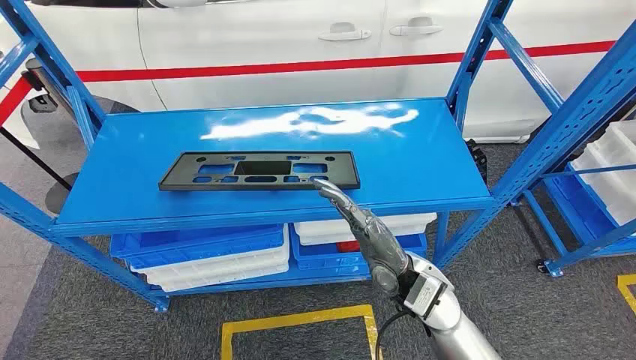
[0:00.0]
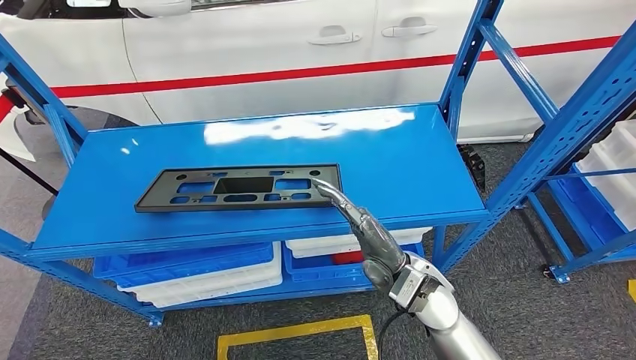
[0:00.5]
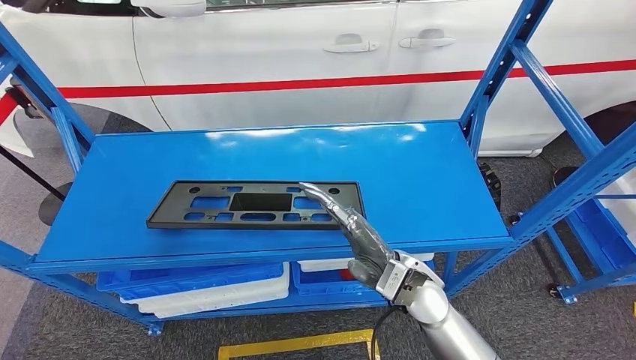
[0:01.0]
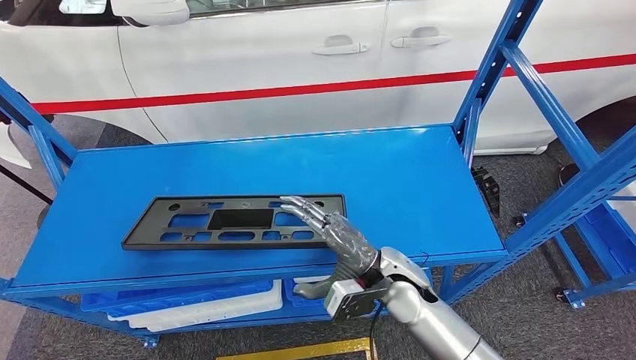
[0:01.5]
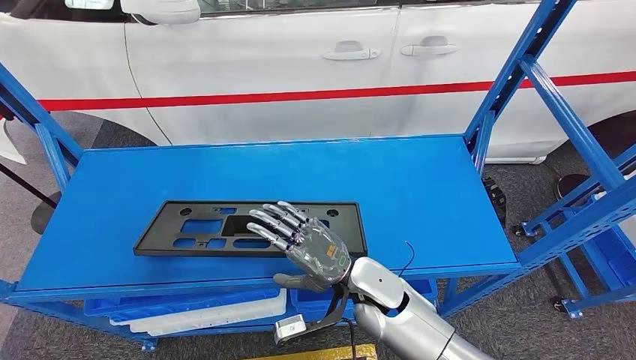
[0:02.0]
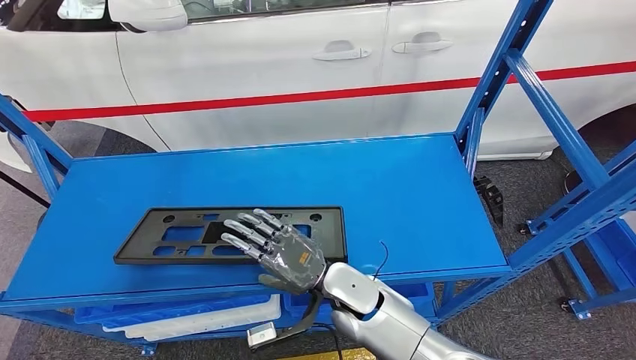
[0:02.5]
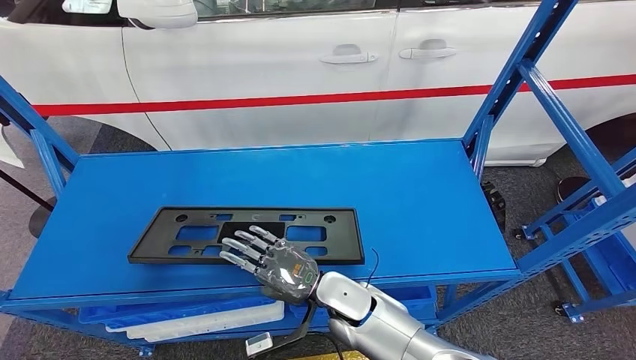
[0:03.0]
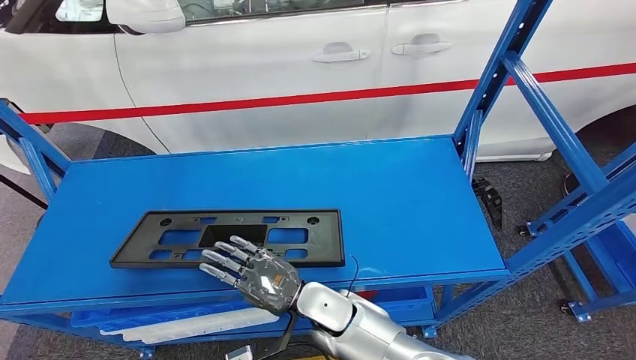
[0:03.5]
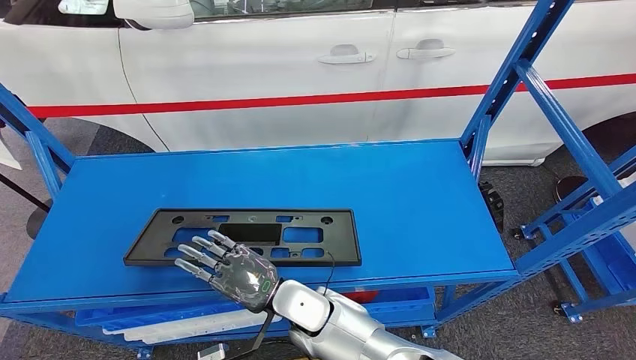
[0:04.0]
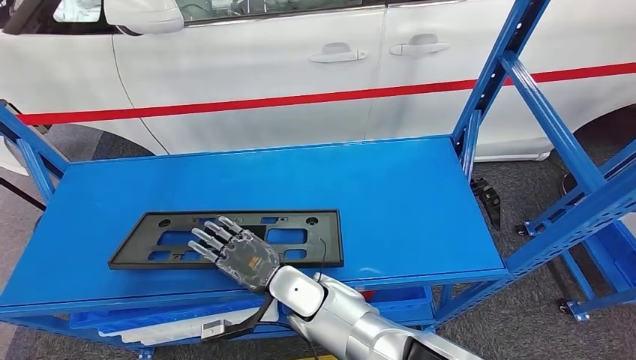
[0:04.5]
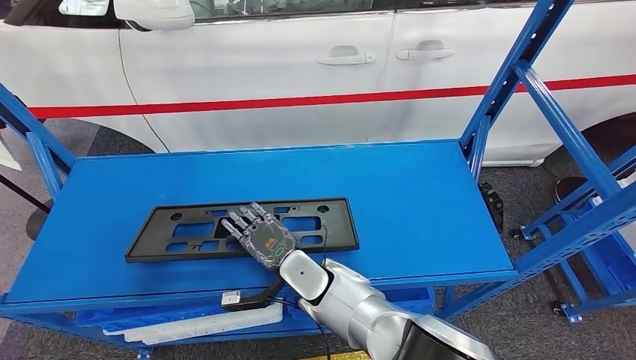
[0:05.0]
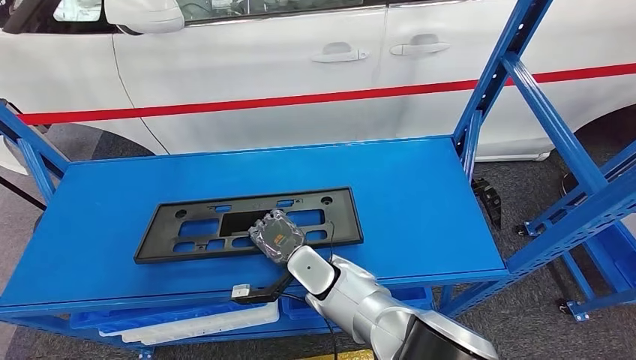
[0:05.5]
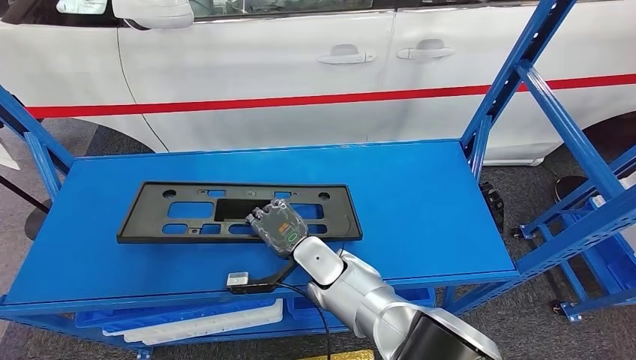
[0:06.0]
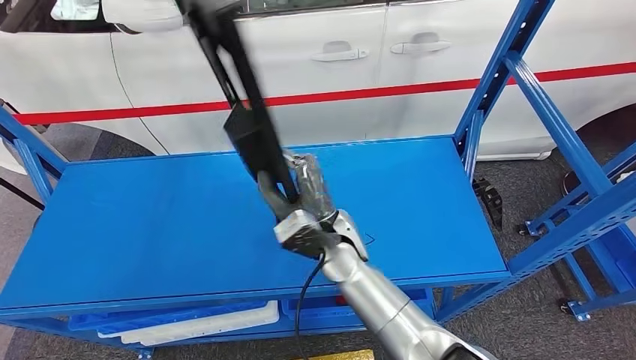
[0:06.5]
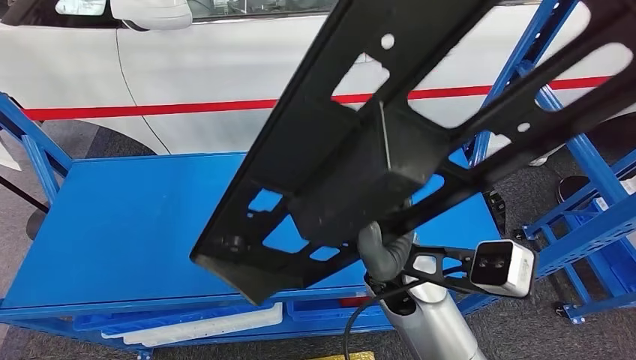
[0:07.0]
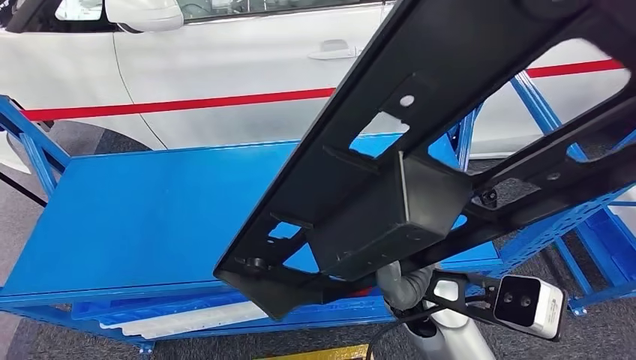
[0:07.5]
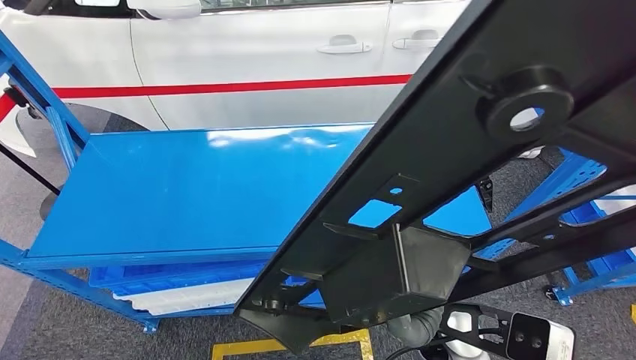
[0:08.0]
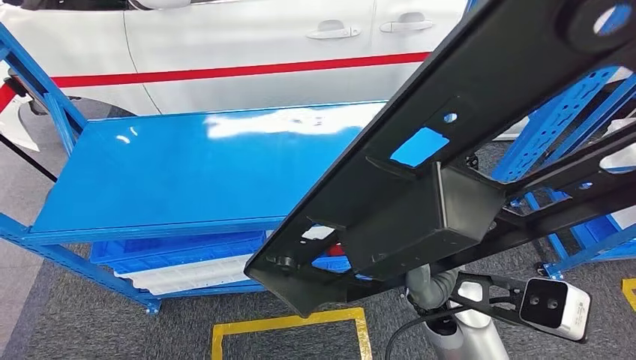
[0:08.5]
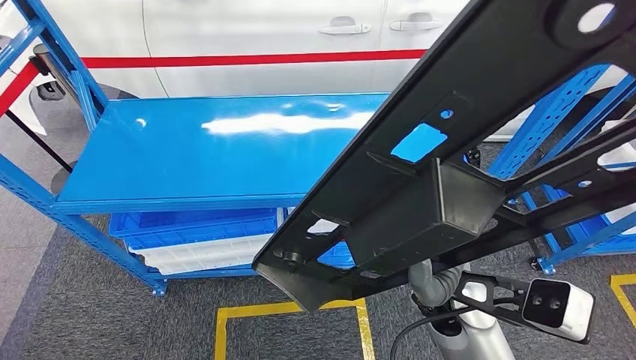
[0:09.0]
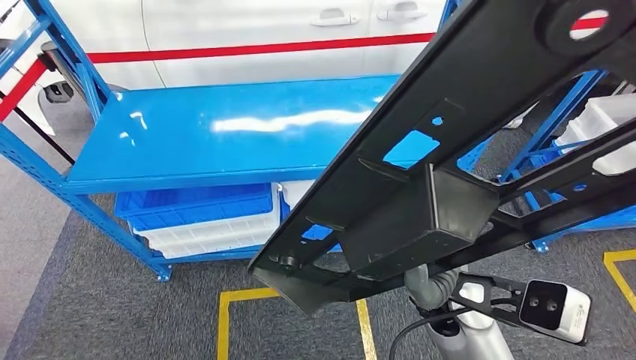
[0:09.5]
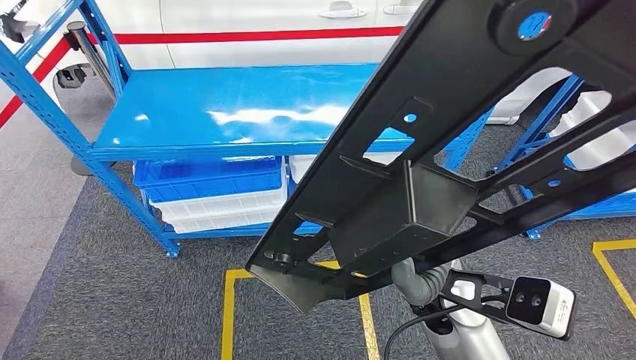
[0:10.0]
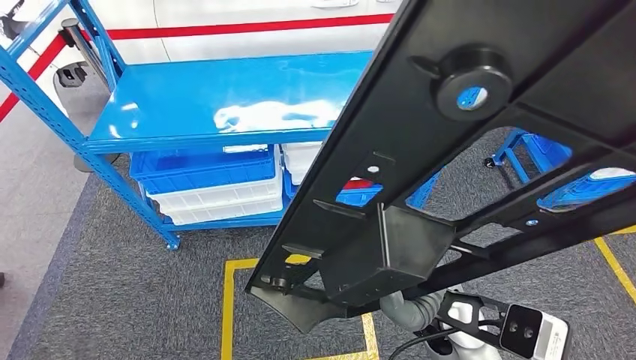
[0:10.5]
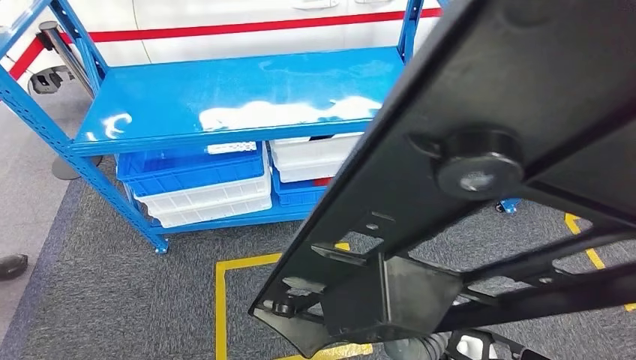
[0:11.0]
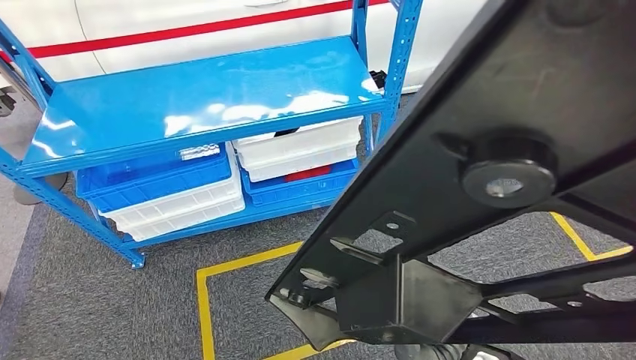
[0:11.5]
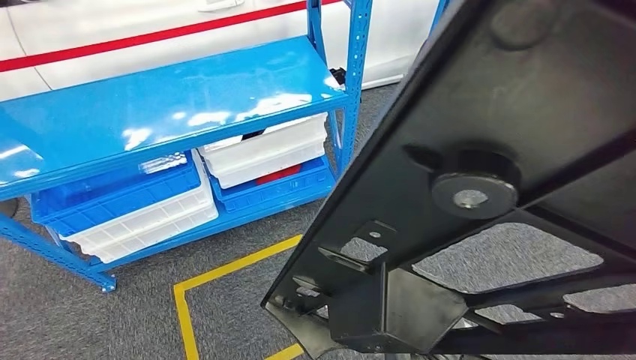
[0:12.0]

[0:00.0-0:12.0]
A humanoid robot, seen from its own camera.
Step, 0:00.0 to 0:07.5: Pick up the large material from the shelf.
0:04.0 to 0:06.0: The right hand heads forward, covering about 5 cm.

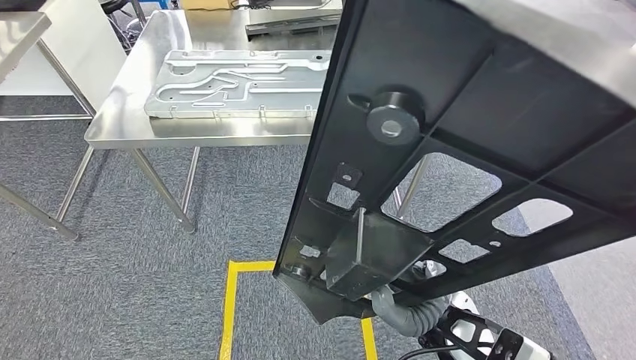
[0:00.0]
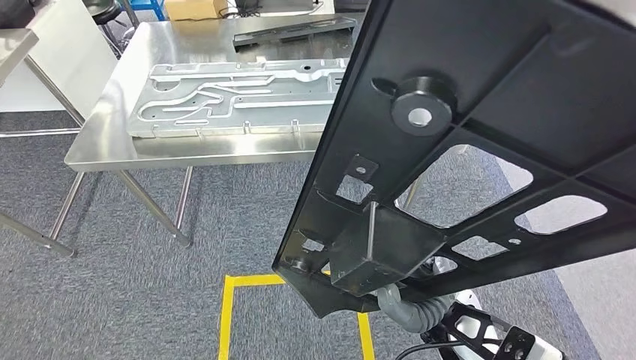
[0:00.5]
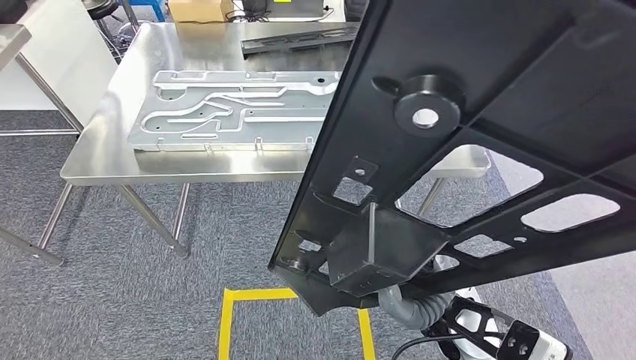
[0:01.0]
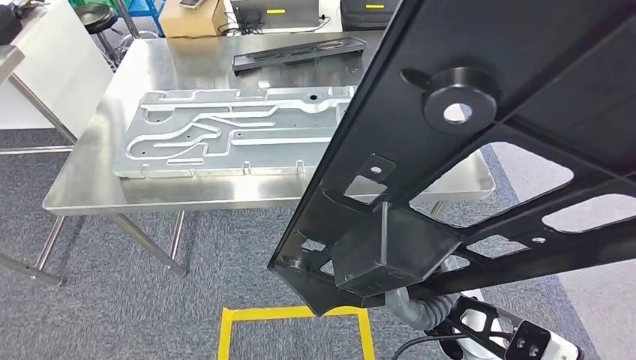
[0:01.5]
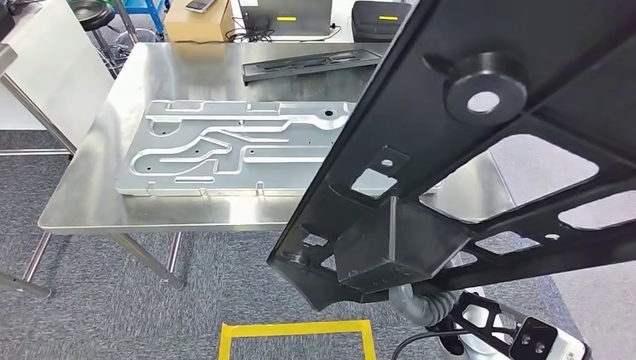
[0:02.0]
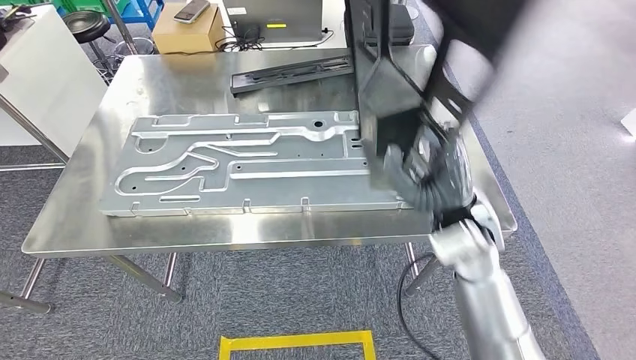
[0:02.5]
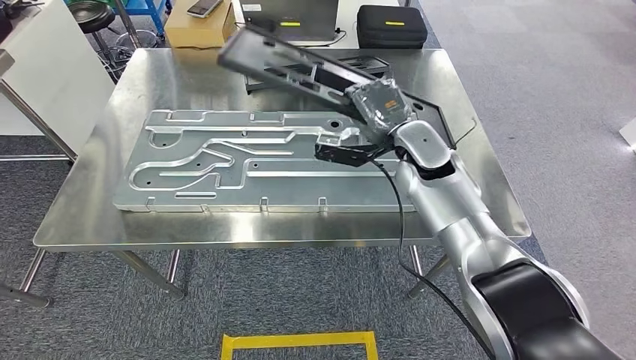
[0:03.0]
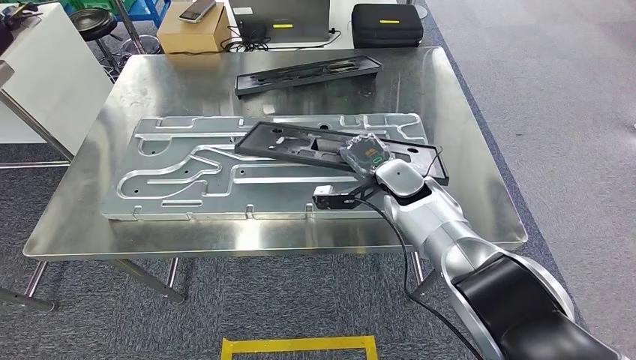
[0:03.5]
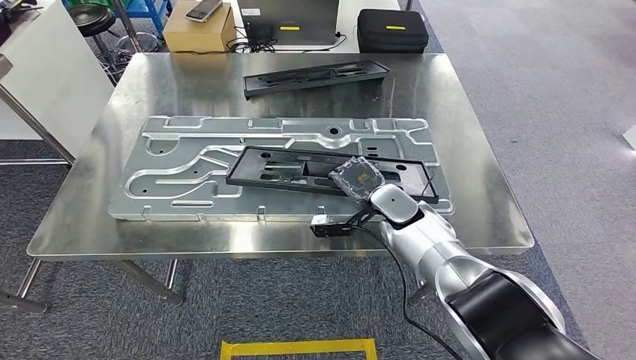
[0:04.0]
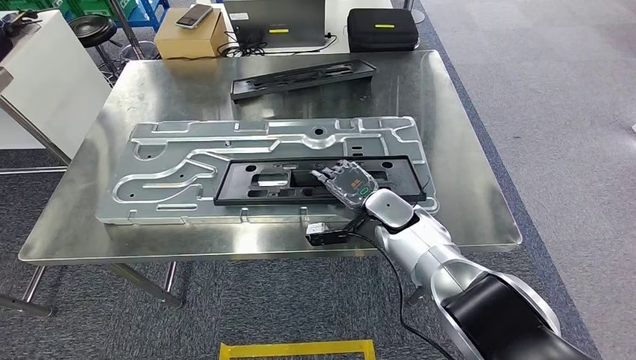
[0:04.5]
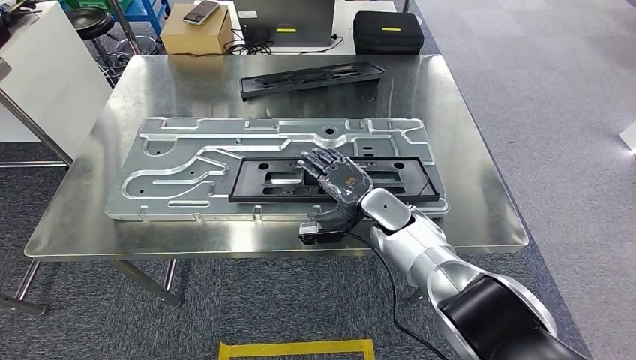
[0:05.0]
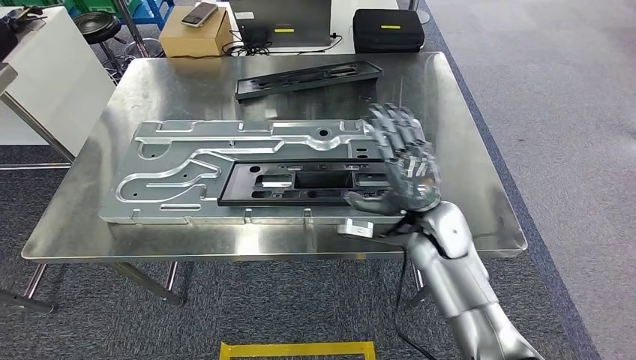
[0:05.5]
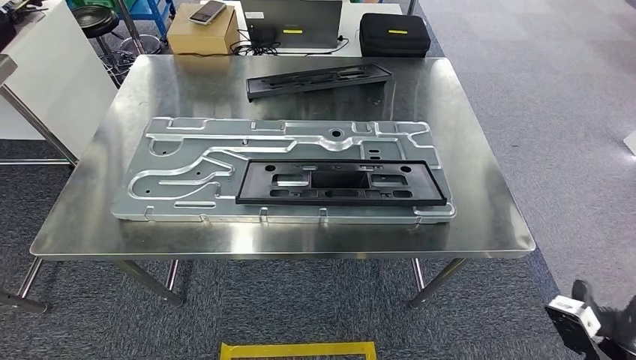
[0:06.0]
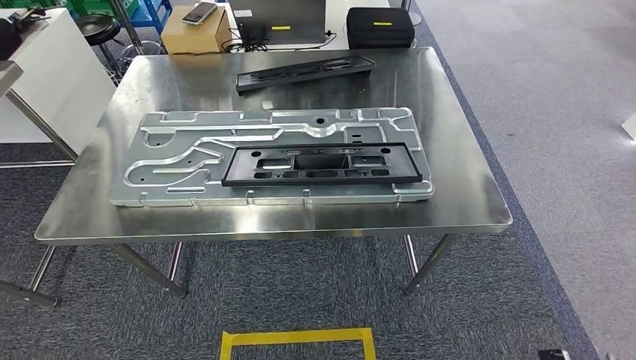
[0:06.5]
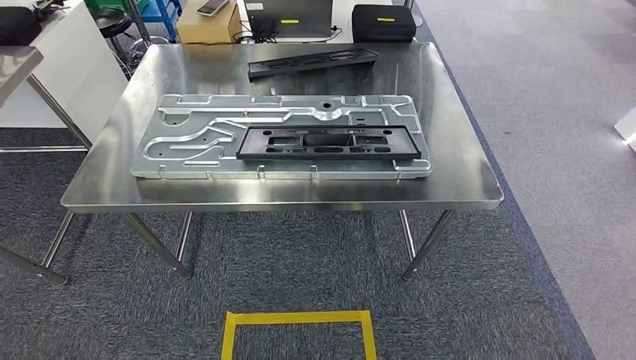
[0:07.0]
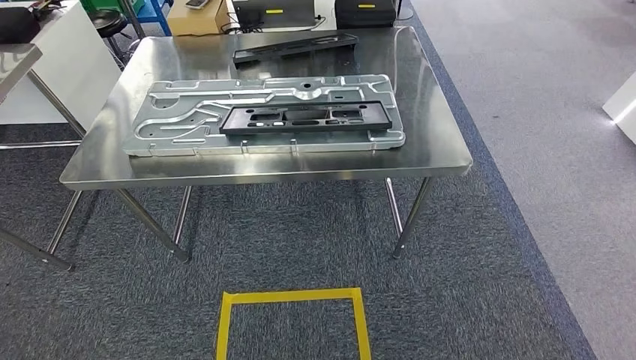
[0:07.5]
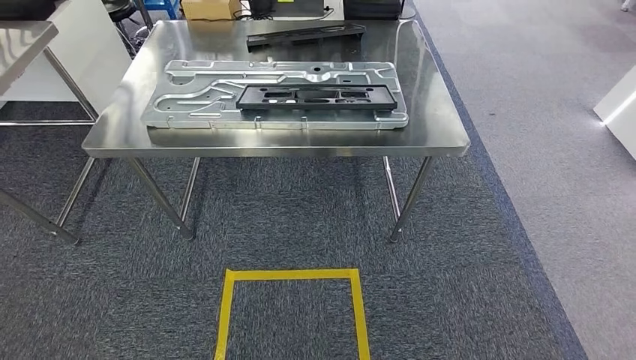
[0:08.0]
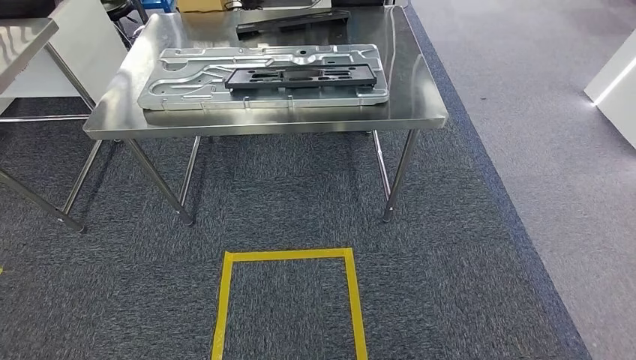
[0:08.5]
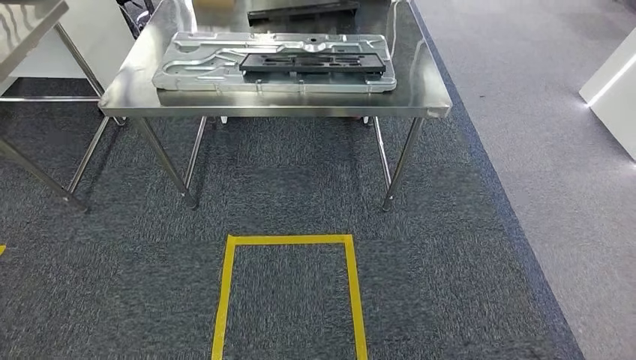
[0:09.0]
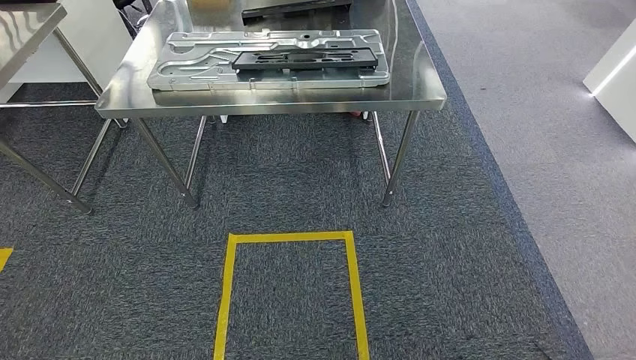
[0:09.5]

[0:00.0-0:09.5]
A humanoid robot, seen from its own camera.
Step, 0:00.0 to 0:02.0: Move the large material to the workbench.
Step, 0:02.5 to 0:05.0: Insert the large material into the corresponding slot on the workbench.
Step, 0:05.5 to 0:09.5: Move to the initial position of the shelf.
